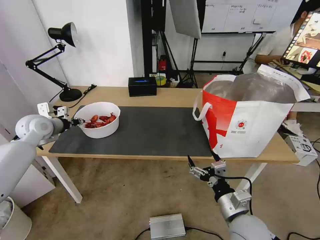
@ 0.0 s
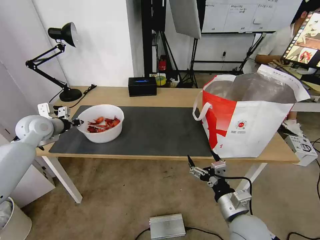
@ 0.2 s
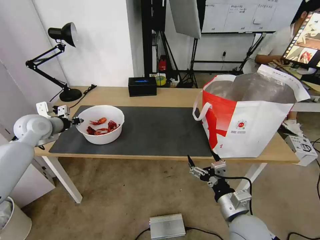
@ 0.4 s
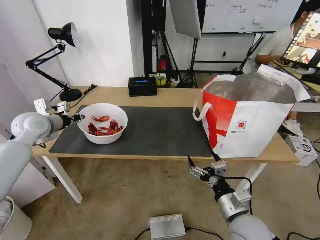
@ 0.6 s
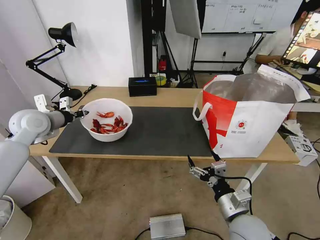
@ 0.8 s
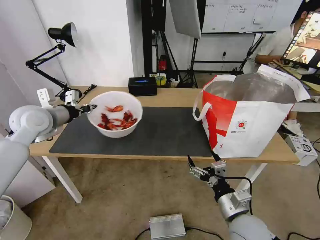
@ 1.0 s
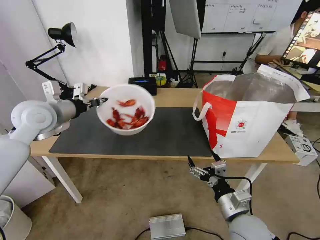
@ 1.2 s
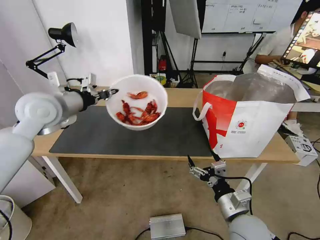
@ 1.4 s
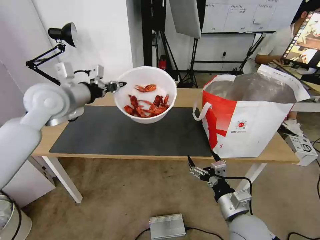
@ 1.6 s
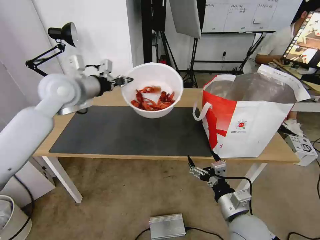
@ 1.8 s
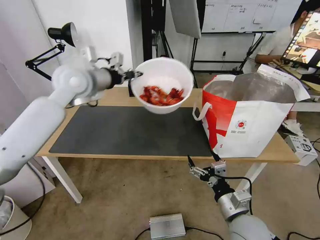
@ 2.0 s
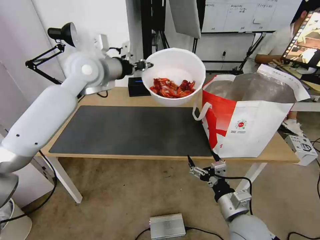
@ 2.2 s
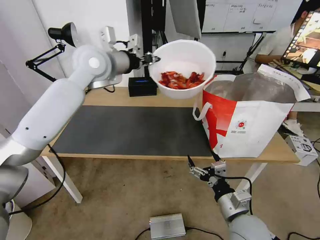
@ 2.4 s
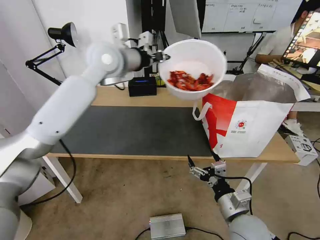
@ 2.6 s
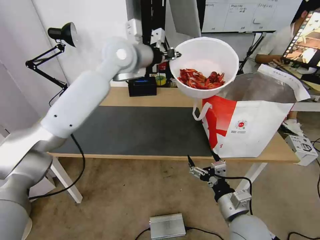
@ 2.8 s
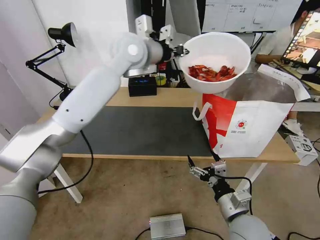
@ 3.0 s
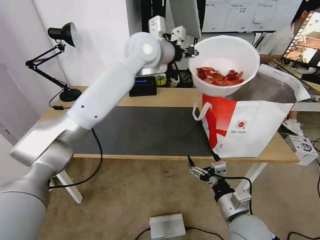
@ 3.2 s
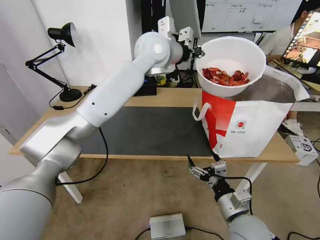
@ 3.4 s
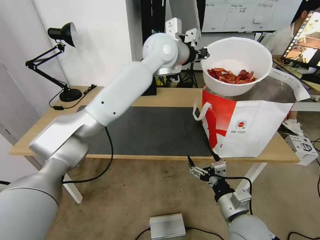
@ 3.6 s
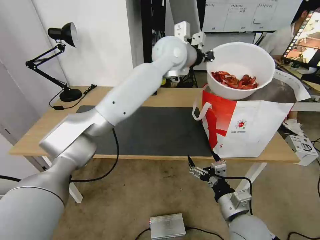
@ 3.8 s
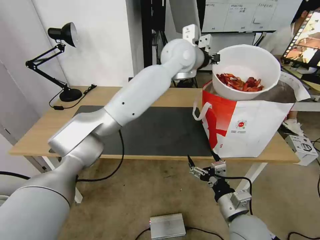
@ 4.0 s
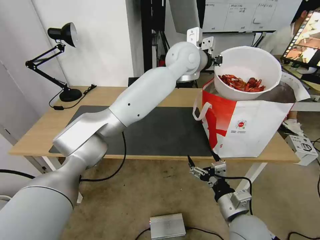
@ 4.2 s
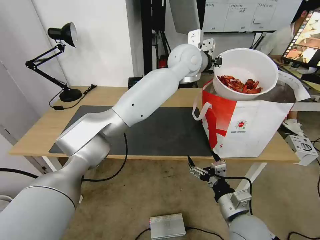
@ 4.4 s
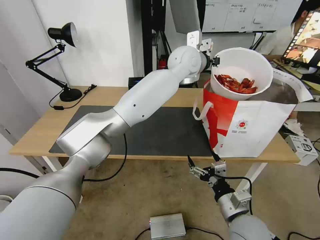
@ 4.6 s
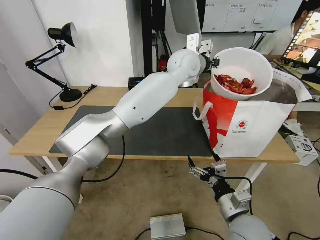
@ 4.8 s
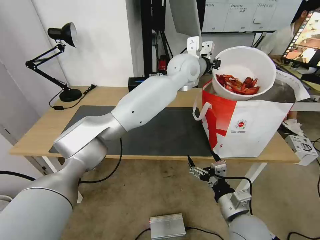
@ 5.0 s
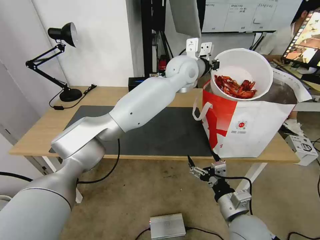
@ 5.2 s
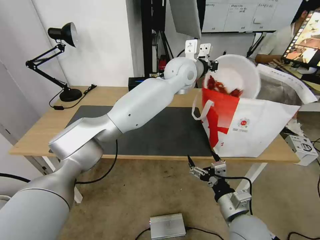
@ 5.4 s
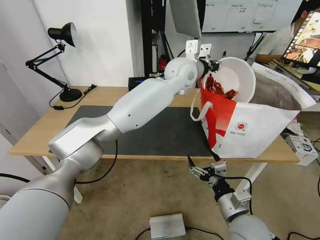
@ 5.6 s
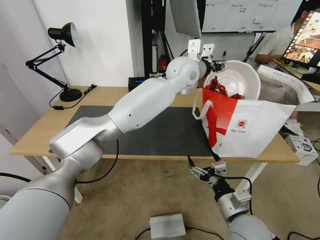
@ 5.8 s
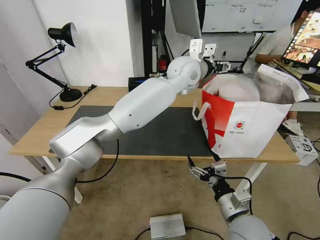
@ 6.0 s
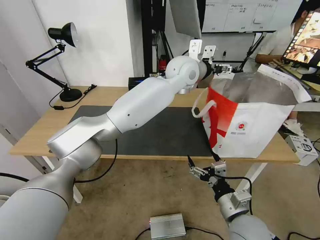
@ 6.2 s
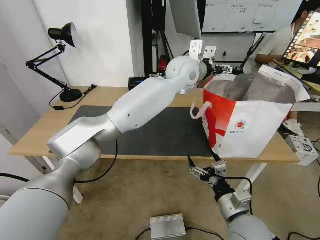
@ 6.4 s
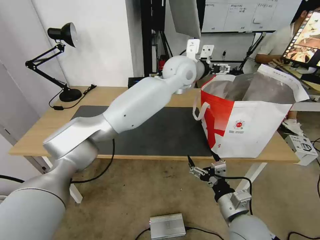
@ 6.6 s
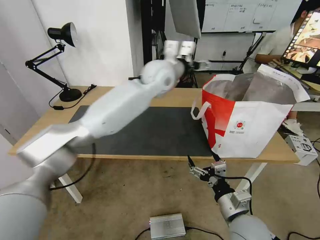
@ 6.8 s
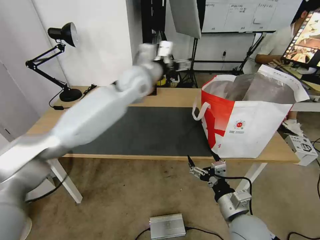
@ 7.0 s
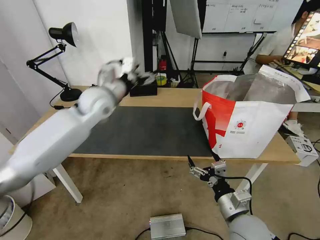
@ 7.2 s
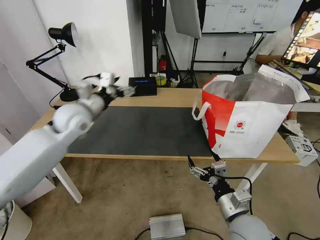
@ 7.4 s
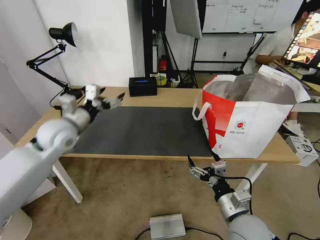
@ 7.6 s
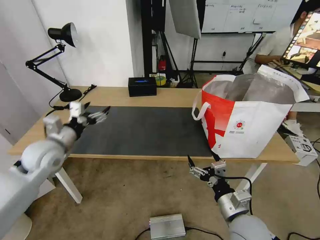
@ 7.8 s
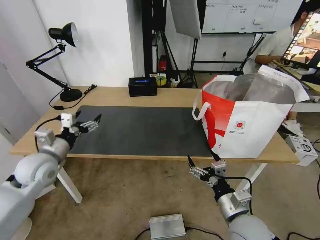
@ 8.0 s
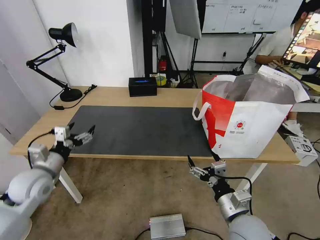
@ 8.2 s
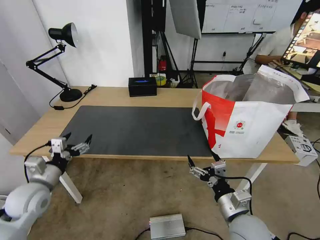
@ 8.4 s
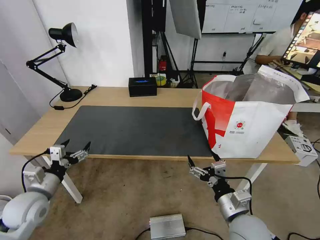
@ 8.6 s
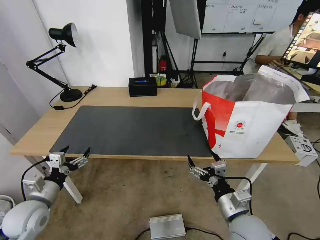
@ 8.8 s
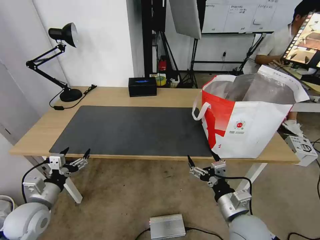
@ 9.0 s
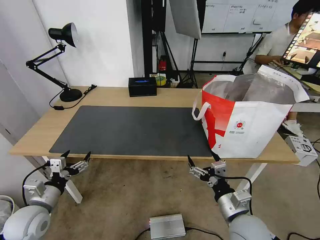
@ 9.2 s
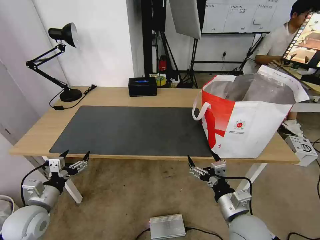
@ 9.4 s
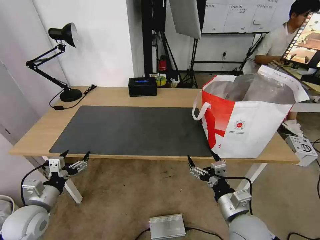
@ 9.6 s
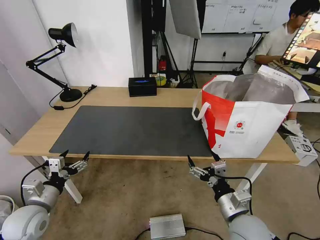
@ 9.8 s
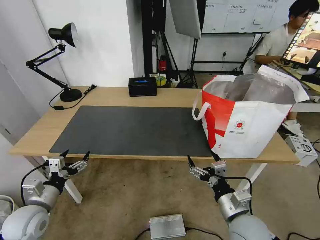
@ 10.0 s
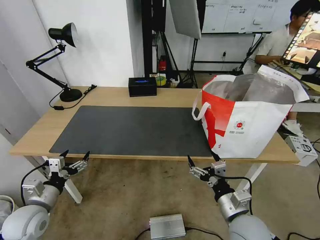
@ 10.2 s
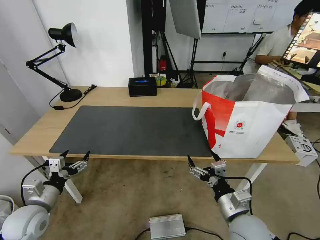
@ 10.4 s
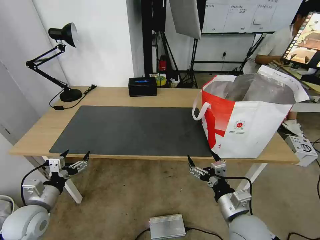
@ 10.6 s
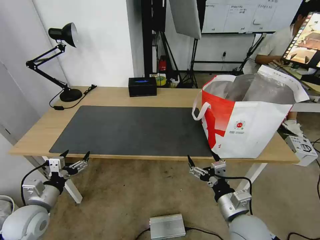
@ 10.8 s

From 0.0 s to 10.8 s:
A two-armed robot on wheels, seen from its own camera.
Task of the whole recording: Pick up the trash from the table and place it into the takeout bag.
From 0.0 s to 1.6 s: The left gripper goes approximately 20 cm upward and to the right.
From 1.6 s to 3.0 s: The left gripper is displaced to the right, forward and upward by roughly 25 cm.
From 3.0 s to 4.6 s: The left gripper moves to the right, some 15 cm.
From 4.6 s to 6.2 s: The left gripper opens its fingers.
From 6.2 s to 7.8 s: The left gripper is displaced to the left, backward and downward by roughly 40 cm.
From 7.8 s to 9.2 s: The left gripper goes about 20 cm backward and downward.
From 9.2 s to 10.8 s: Neither gripper changes place.

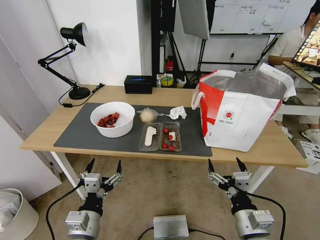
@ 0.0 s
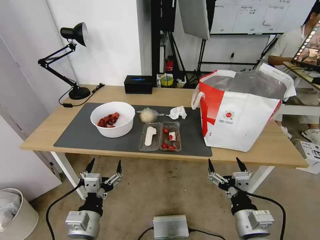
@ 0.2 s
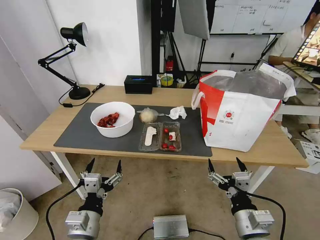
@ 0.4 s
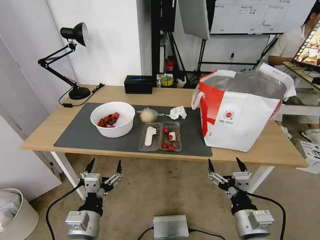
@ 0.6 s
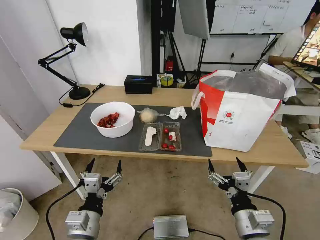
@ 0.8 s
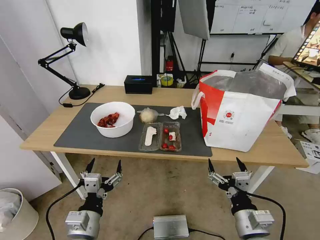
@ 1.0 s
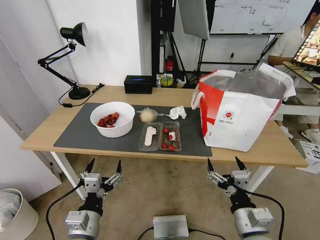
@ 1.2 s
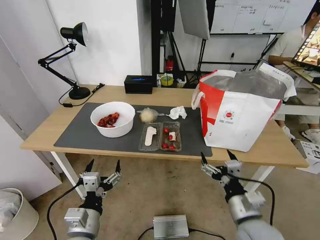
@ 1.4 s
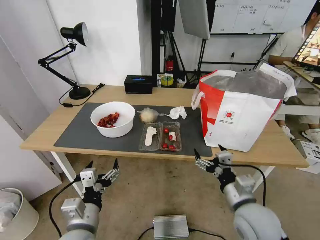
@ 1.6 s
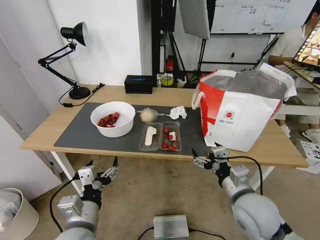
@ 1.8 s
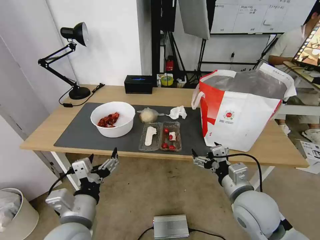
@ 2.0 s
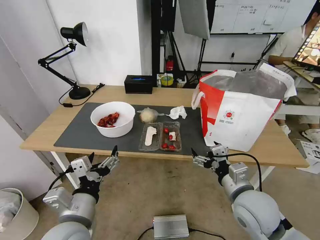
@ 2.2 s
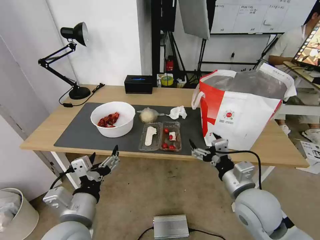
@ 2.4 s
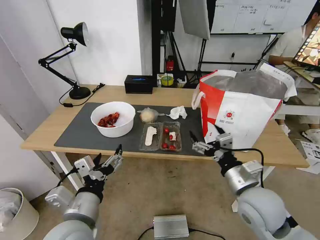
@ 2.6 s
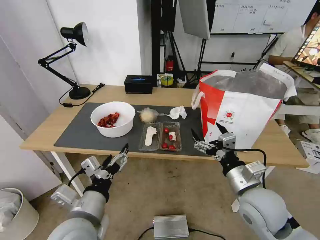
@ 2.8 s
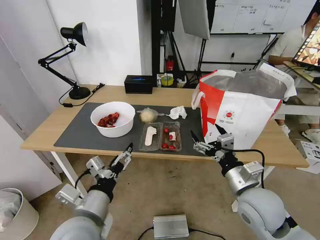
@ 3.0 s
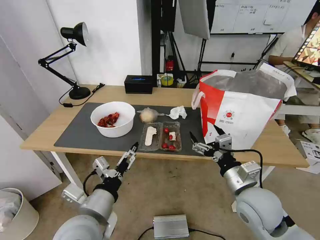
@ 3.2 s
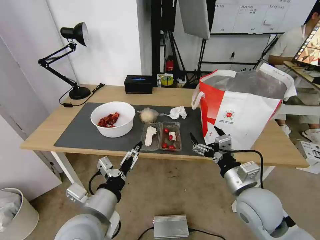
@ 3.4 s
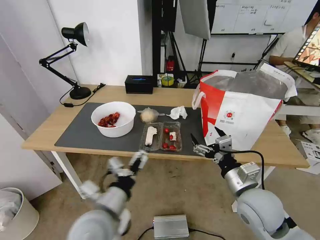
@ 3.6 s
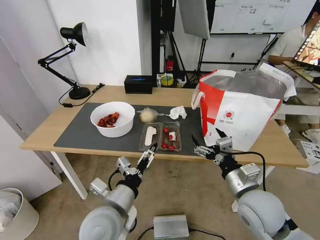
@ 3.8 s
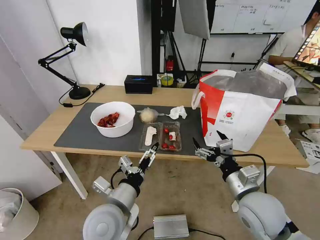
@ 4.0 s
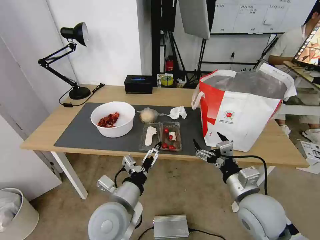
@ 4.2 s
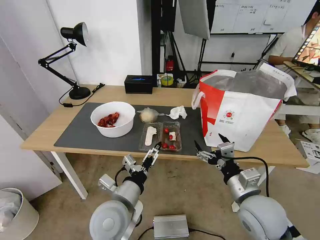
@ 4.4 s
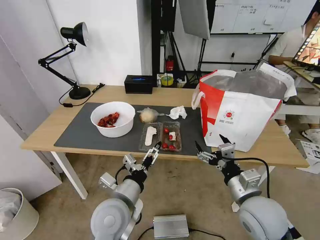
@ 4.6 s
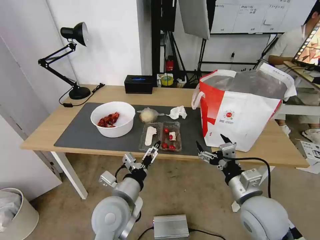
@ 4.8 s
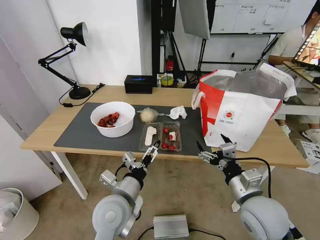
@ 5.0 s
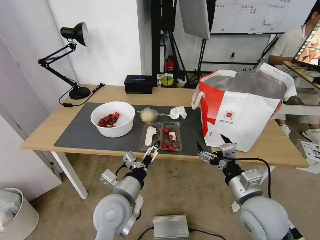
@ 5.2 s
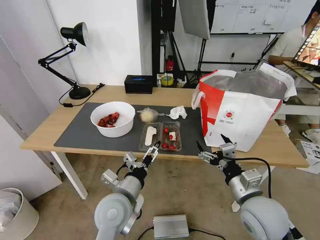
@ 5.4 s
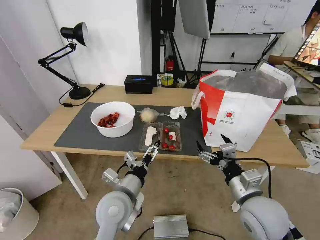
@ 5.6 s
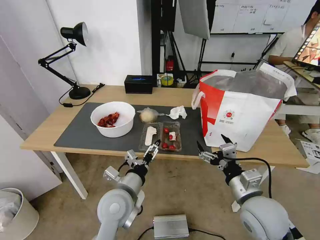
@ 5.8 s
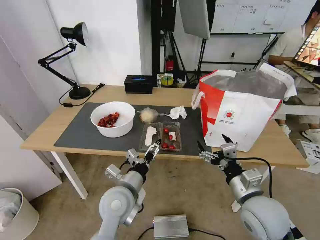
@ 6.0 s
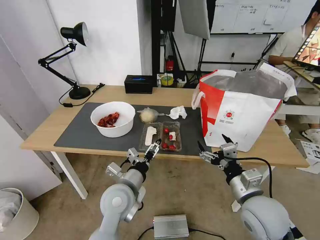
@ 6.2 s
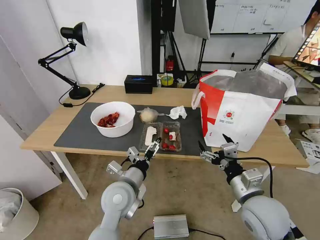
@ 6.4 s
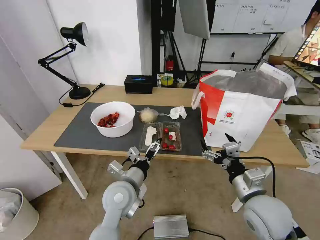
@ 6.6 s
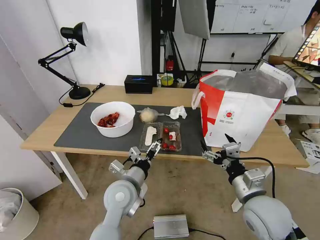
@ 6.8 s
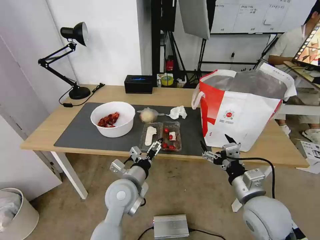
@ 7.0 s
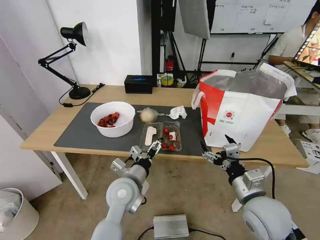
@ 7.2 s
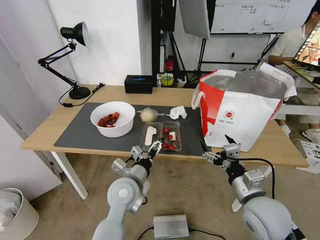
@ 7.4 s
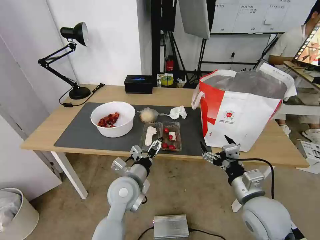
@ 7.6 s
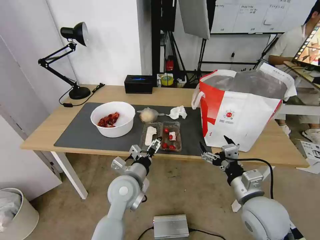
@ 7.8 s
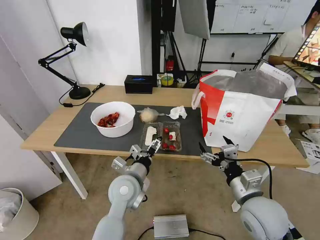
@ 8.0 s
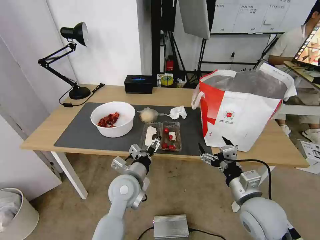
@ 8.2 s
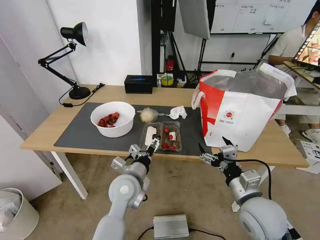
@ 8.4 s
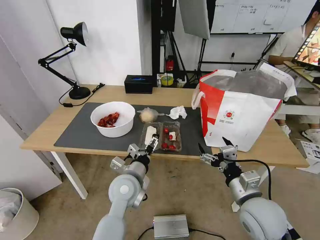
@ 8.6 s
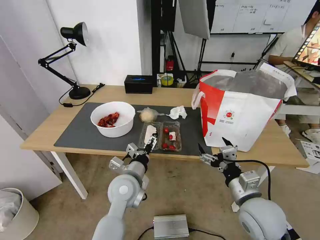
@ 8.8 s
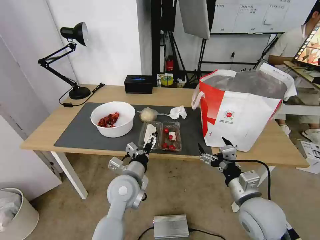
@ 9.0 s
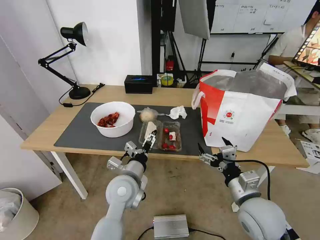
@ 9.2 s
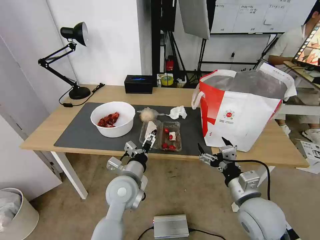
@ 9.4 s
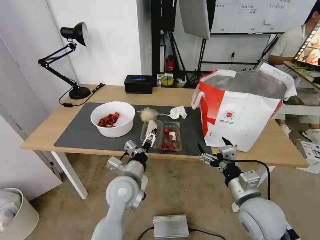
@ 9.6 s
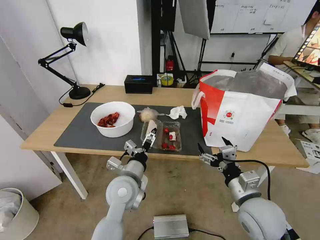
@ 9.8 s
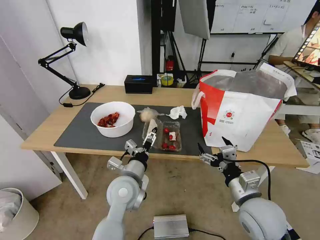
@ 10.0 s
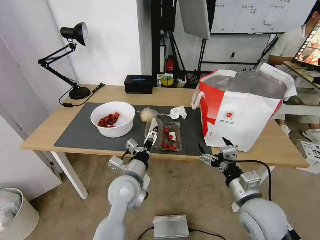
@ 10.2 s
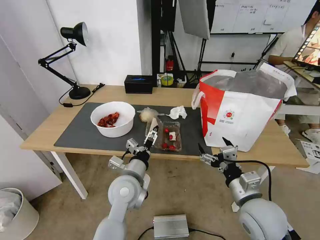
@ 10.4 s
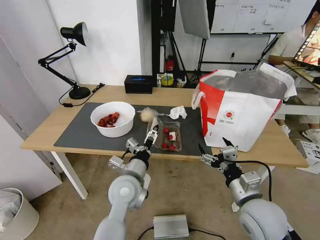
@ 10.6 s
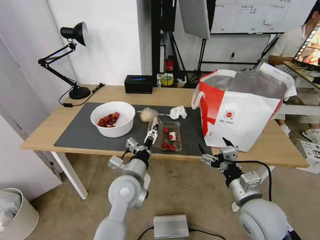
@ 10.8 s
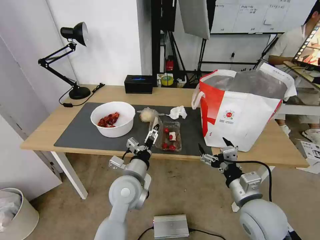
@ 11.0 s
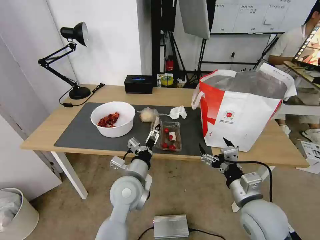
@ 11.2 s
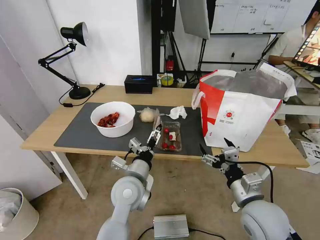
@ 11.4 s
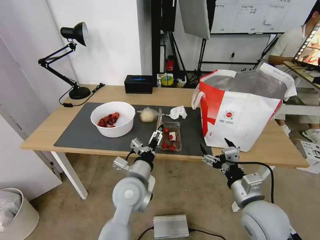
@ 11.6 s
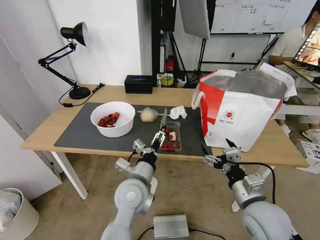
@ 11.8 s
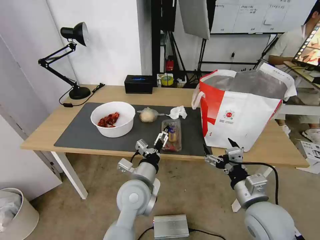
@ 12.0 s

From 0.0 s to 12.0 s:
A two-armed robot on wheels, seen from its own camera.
Task of the whole recording: Pick up the trash from the table and place it into the takeout bag.
From 1.6 s to 3.0 s: The left gripper shifts about 5 cm upward.
From 3.0 s to 4.4 s: The left gripper goes some 5 cm to the right.
From 4.4 s to 6.0 s: The grippers make only small movements.
From 6.0 s to 12.0 s: The grippers move only a little.
